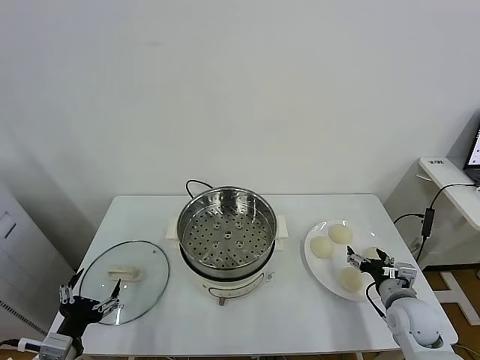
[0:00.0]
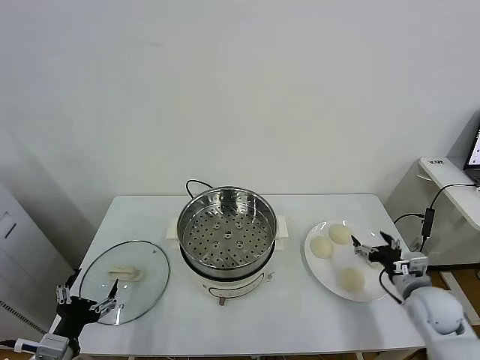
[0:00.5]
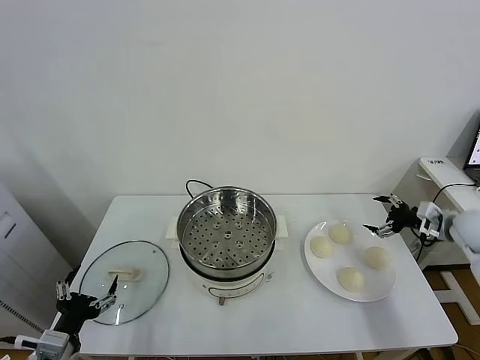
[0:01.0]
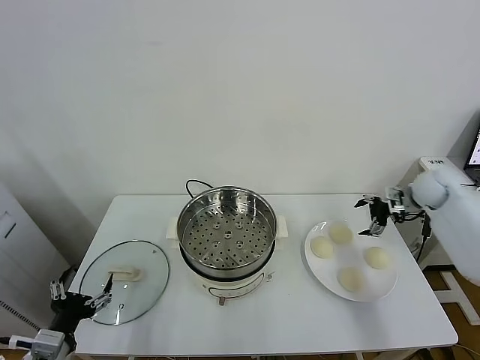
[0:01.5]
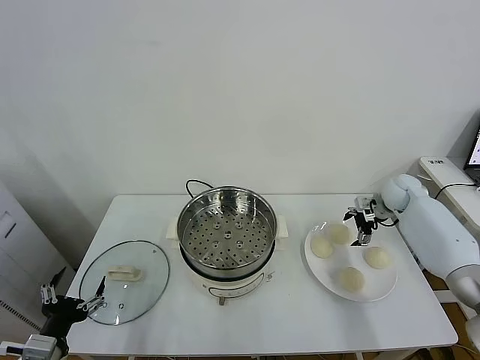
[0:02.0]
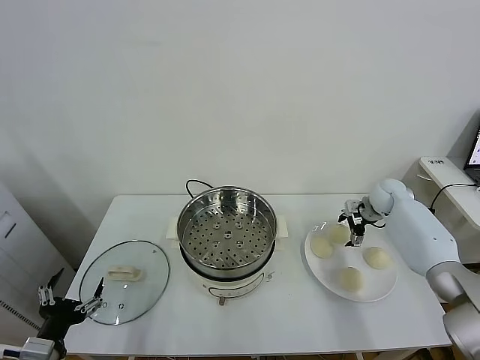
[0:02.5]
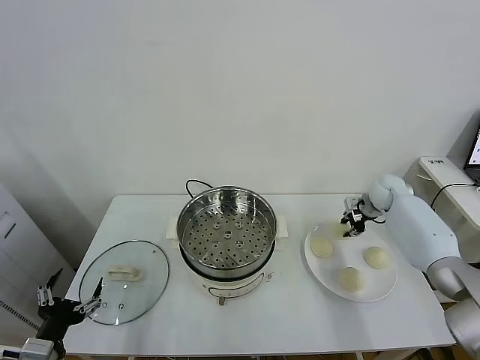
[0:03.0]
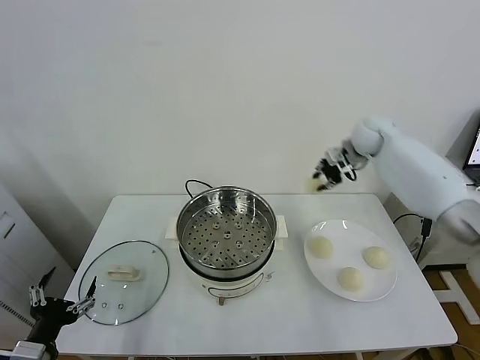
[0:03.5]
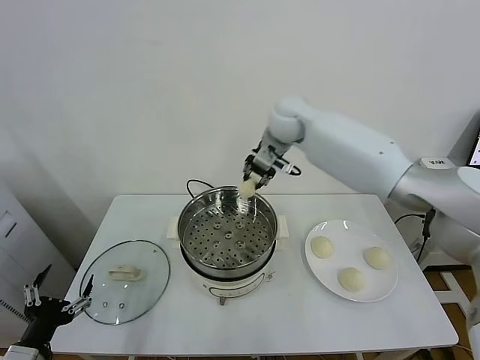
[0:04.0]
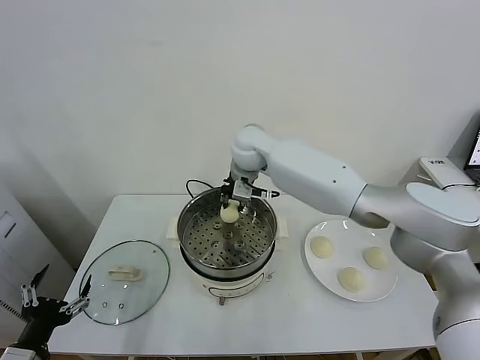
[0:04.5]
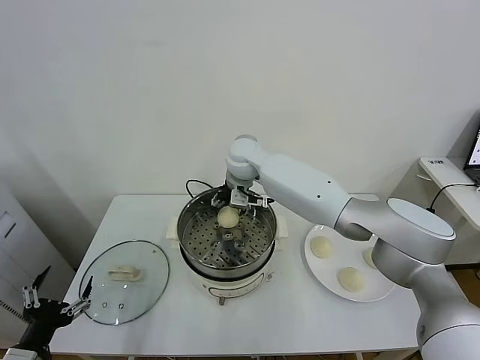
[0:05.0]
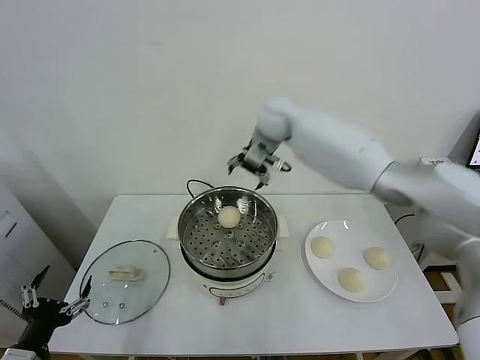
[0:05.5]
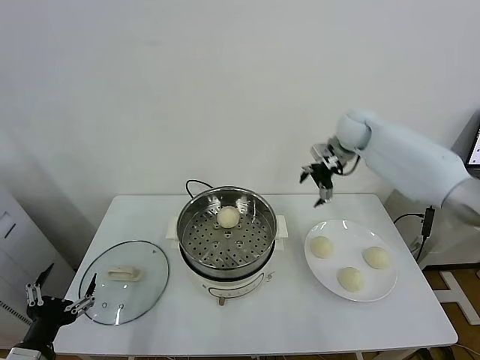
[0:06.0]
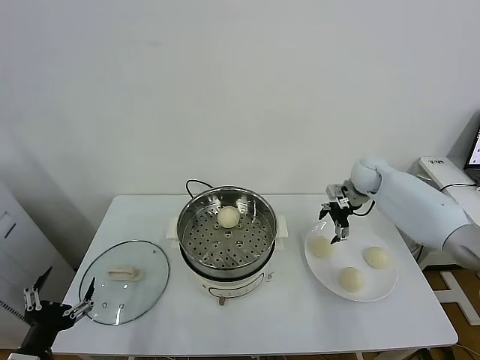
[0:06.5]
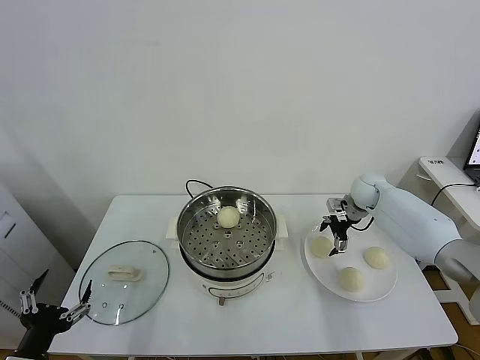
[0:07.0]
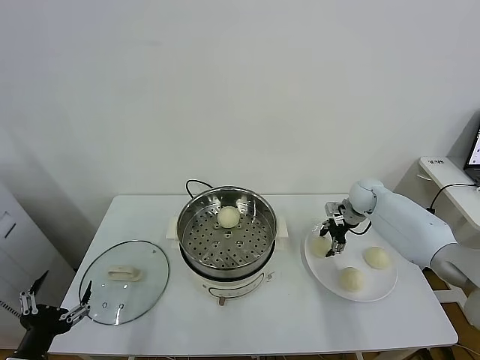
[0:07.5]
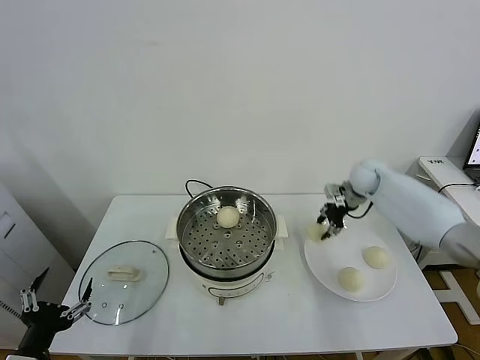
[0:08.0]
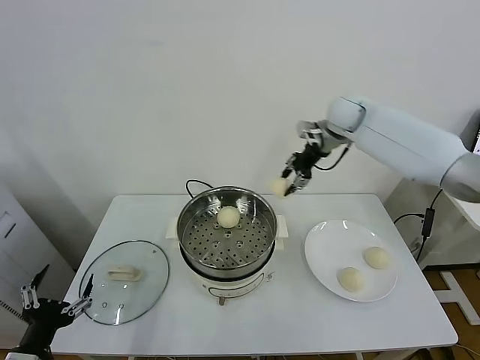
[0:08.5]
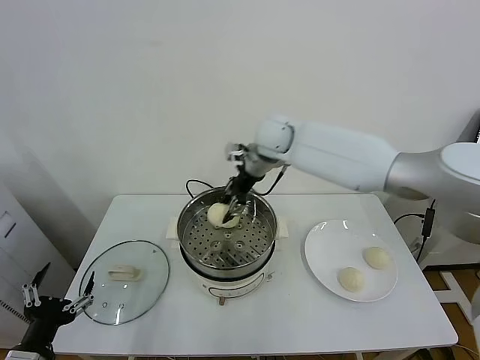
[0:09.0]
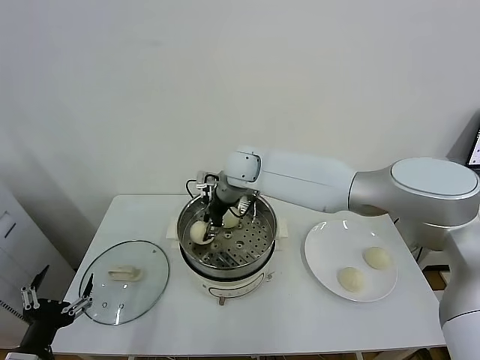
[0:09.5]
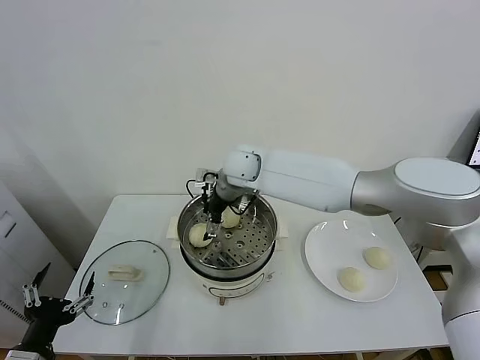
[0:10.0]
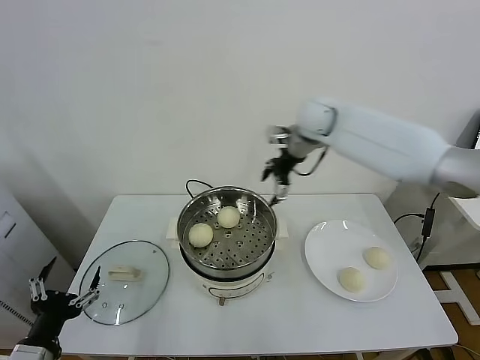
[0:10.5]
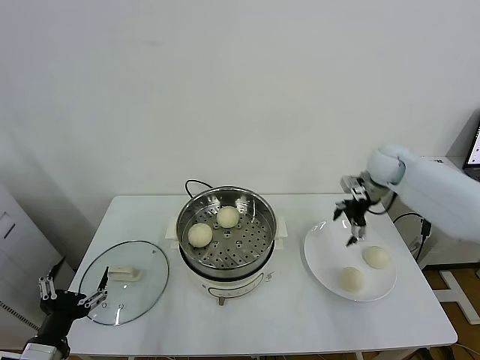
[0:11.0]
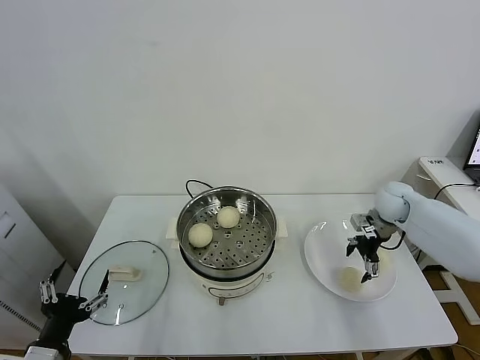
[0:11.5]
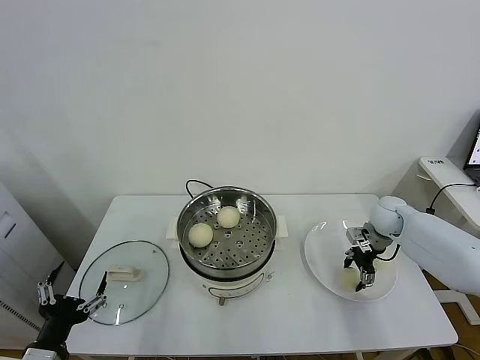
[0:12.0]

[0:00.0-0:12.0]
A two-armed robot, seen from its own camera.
Task of the whole recording: take steamed baozi put them in steamer.
Step, 0:00.0 to 0:02.5: Grasp the baozi in the plate with right gripper.
Step, 0:03.0 to 0:05.0: Place the baozi on the steamer with right gripper.
Step, 0:05.5 to 0:07.0: Grasp the baozi in the plate with right gripper.
Step, 0:07.5 to 0:09.5: Place the baozi on the steamer with right gripper.
Step, 0:10.5 to 0:12.0: Grasp the baozi in the plate with right gripper.
0:02.0 to 0:04.0: The right gripper goes some 40 cm to the left and upward, and closes its fingers.
0:04.0 to 0:06.0: The right gripper moves to the right, approximately 25 cm, and opens.
0:06.0 to 0:08.0: The right gripper is displaced downward by roughly 5 cm, and closes its fingers.
0:08.0 to 0:10.0: The right gripper shifts some 30 cm to the left, and opens.
0:10.0 to 0:12.0: The right gripper shifts some 40 cm to the right and downward, and closes.

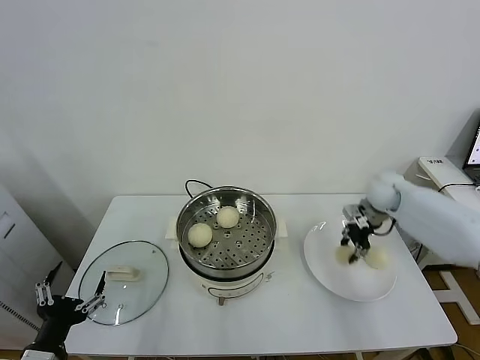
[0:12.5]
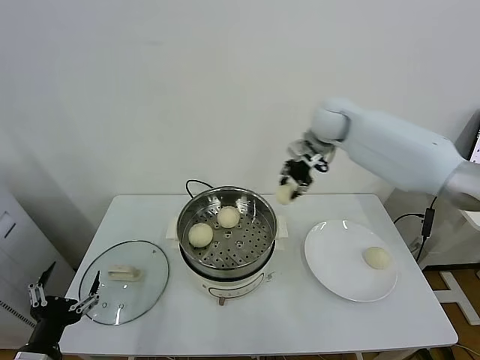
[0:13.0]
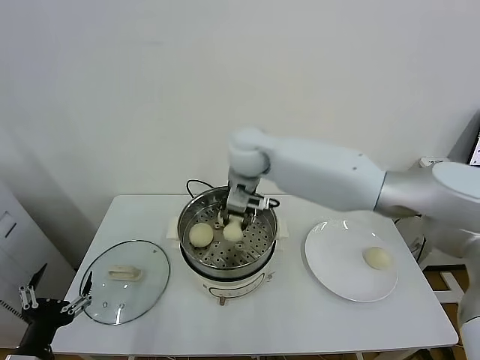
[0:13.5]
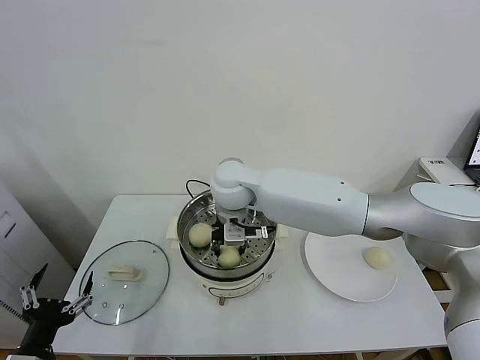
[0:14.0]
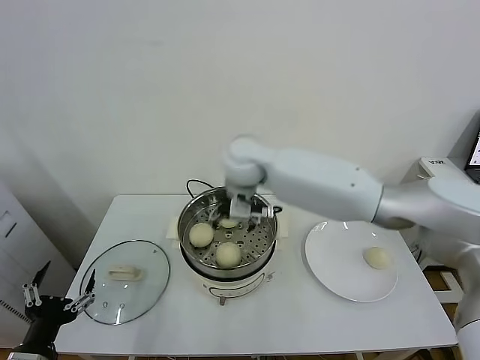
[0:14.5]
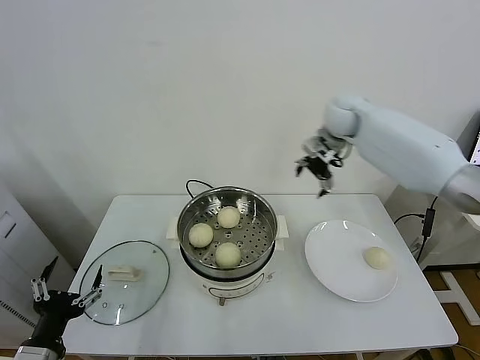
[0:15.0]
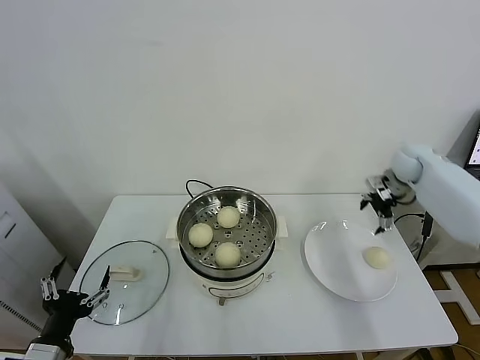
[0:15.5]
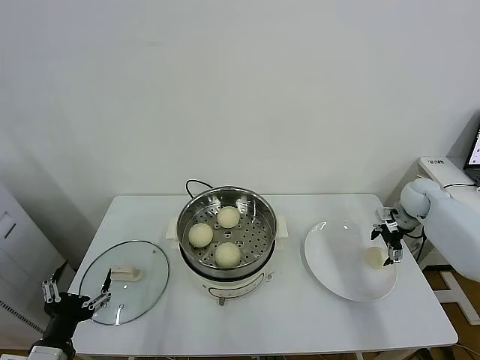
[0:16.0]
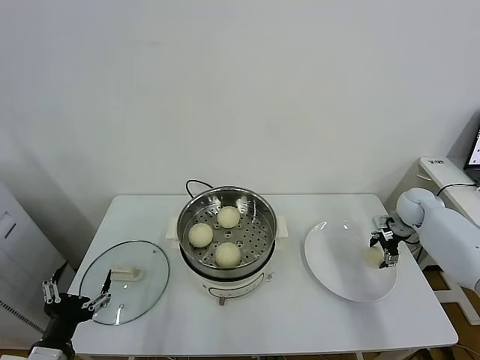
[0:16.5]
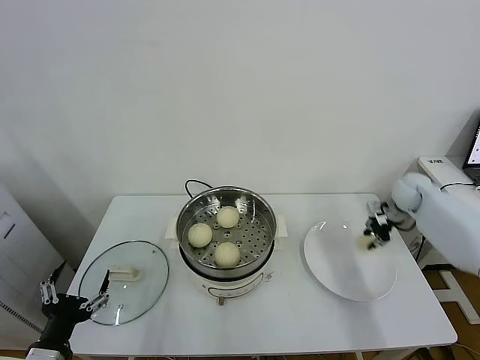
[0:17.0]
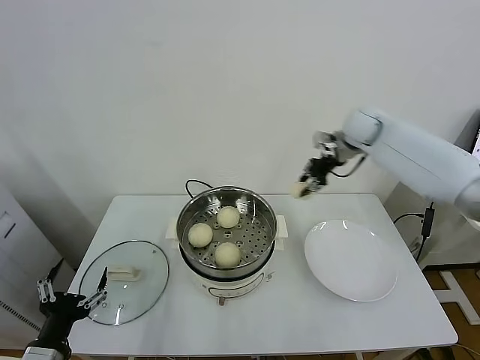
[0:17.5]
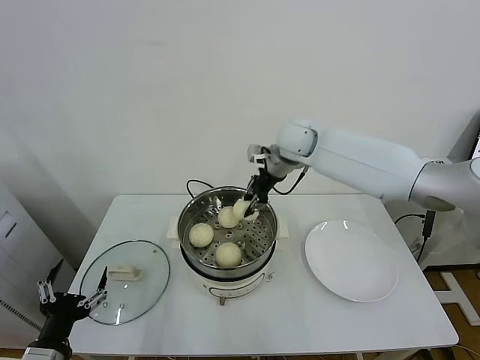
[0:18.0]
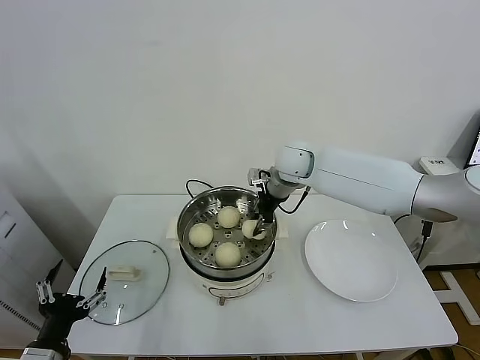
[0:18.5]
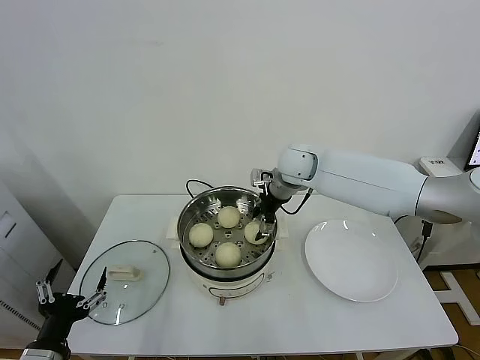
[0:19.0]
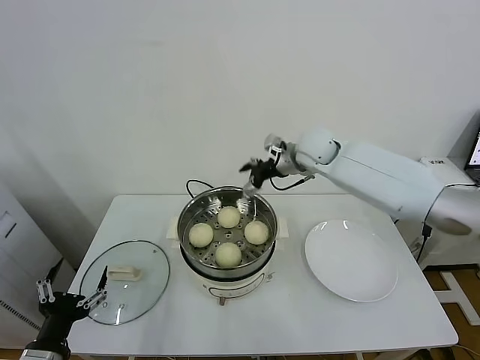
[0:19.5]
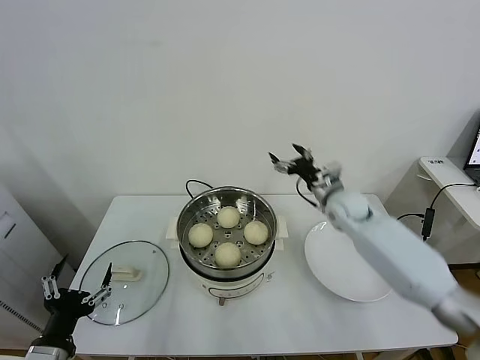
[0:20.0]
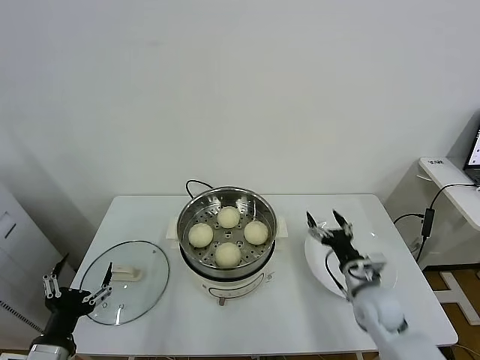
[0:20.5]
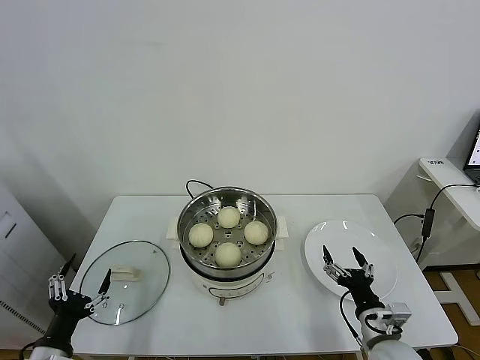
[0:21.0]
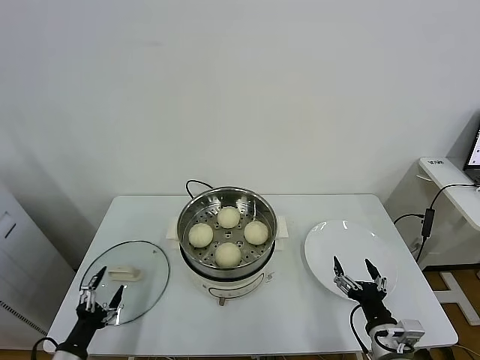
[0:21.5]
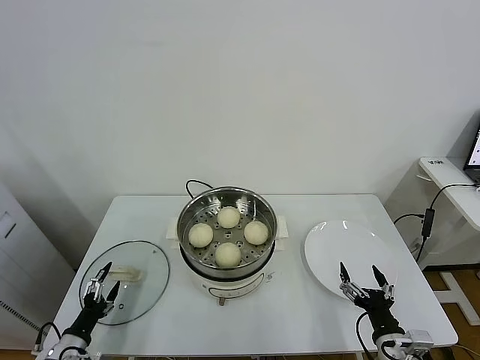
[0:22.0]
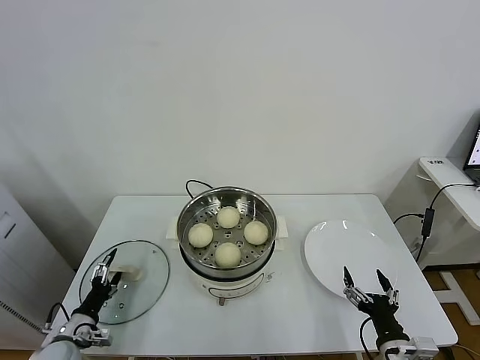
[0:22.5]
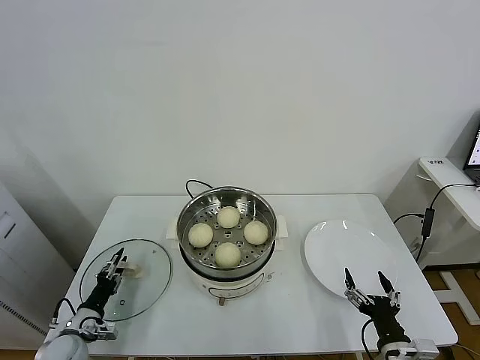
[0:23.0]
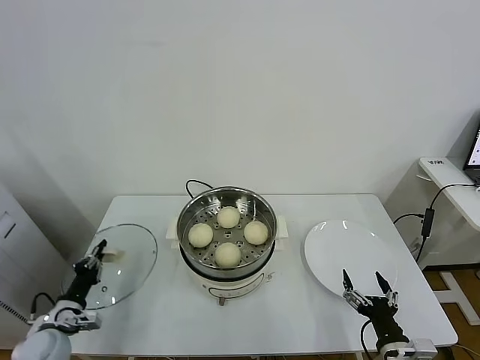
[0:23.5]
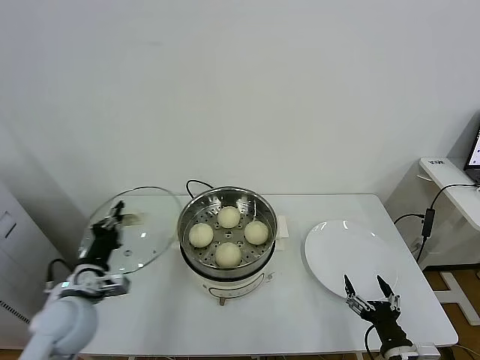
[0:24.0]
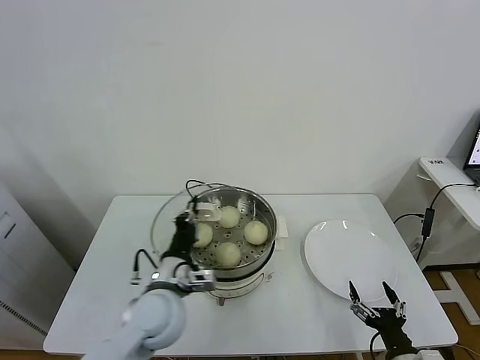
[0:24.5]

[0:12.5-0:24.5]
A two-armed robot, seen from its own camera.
Task of the whole recording: take steamed baozi put them in steamer.
Step, 0:12.5 to 0:14.0: Place the baozi on the steamer with right gripper.
Step, 0:14.5 to 0:16.5: Grasp the baozi in the plate with right gripper.
Step, 0:17.0 to 0:19.0: Place the baozi on the steamer with right gripper.
Step, 0:19.5 to 0:23.0: Grasp the pot lid with left gripper.
0:12.5 to 0:14.5: The right gripper goes some 35 cm to the left, and opens.
0:14.5 to 0:16.5: The right gripper travels to the right and downward by roughly 50 cm.
0:16.5 to 0:18.5: The right gripper heads to the left and upward, covering roughly 35 cm, and closes.
0:18.5 to 0:20.5: The right gripper moves backward, downward and to the right, approximately 40 cm, and opens.
0:20.5 to 0:22.5: The right gripper goes about 15 cm backward, while the left gripper moves downward, forward and to the left, approximately 25 cm.
0:22.5 to 0:24.5: The left gripper moves to the right and upward, roughly 30 cm, and closes its fingers.

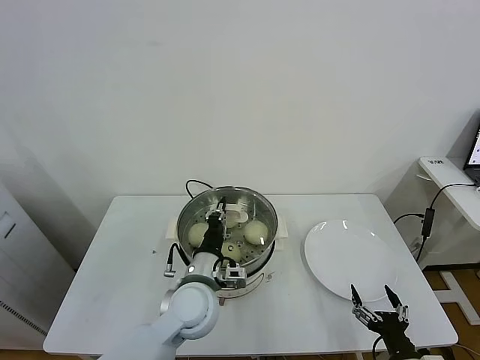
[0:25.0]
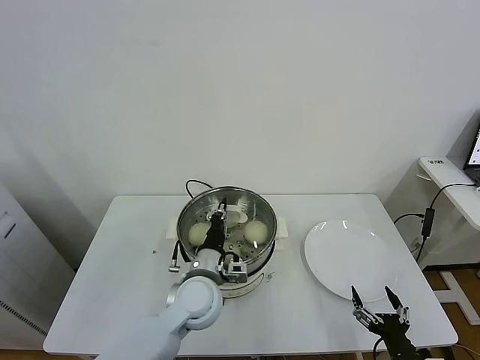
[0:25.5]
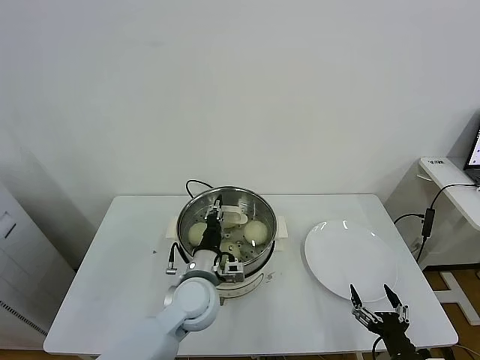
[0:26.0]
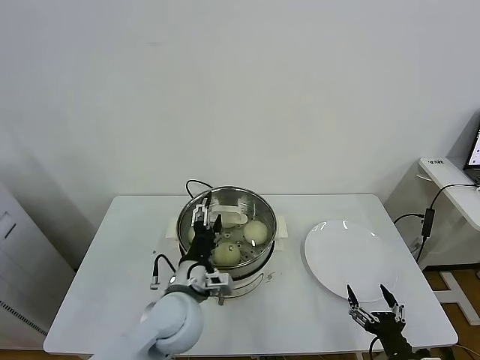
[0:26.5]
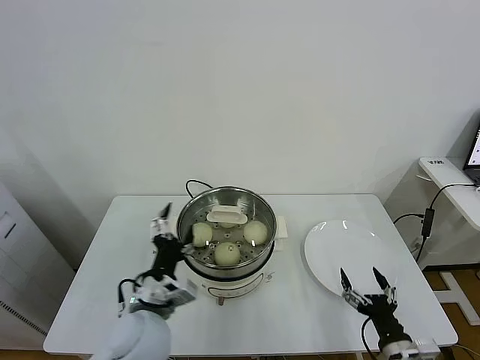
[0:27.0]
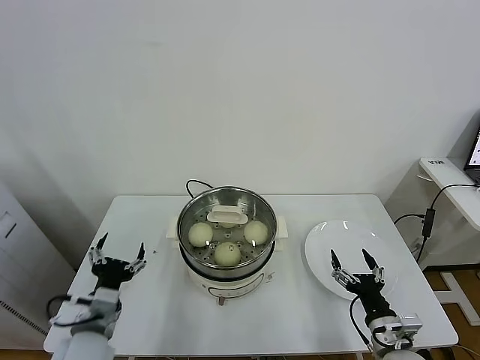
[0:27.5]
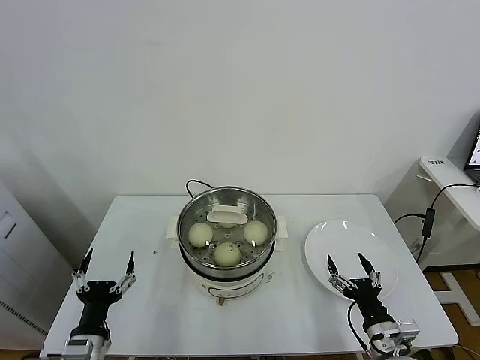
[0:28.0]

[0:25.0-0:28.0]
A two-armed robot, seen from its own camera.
Task of the whole recording: take steamed baozi put them in steamer.
Step, 0:25.0 to 0:26.5: Place the pot lid on the steamer with left gripper.
0:25.0 to 0:26.5: The left gripper opens up.
0:26.5 to 0:28.0: The left gripper moves to the left, backward and downward, some 20 cm, while the right gripper moves forward, some 5 cm.
